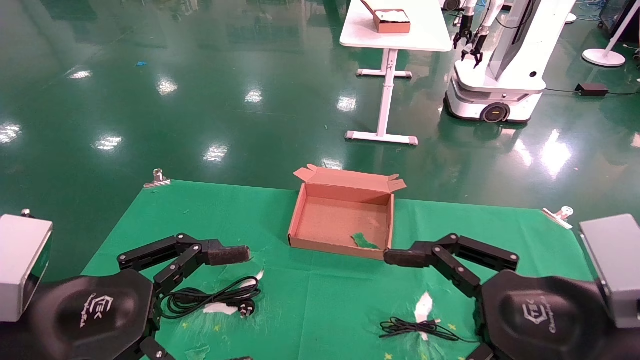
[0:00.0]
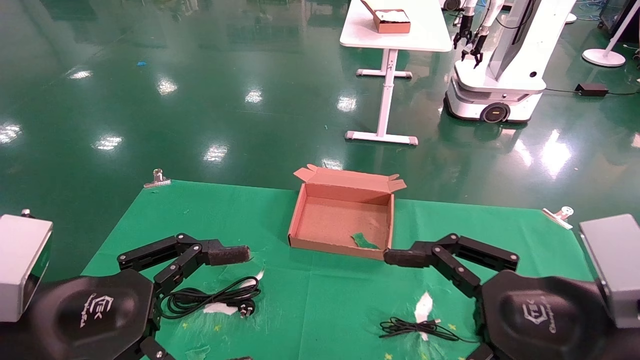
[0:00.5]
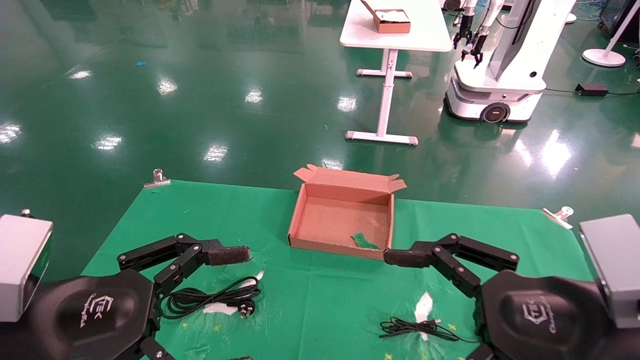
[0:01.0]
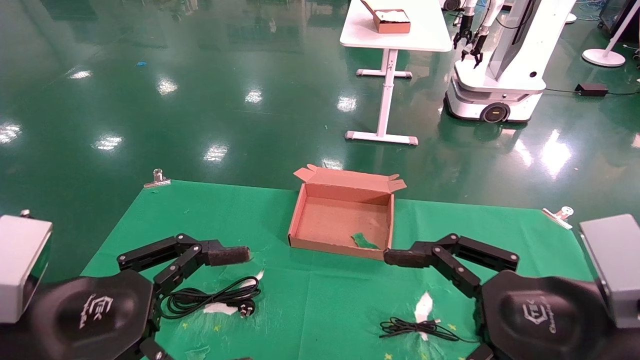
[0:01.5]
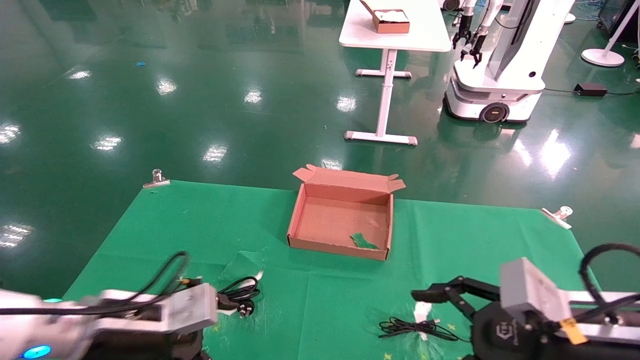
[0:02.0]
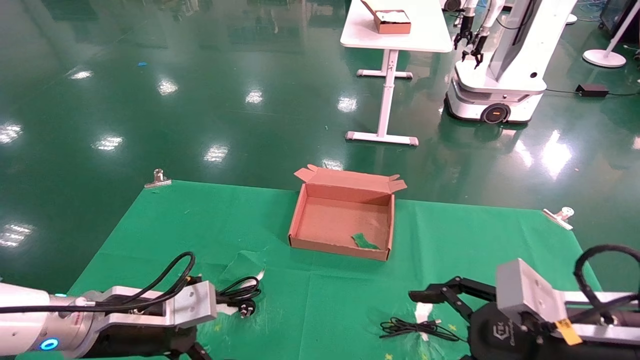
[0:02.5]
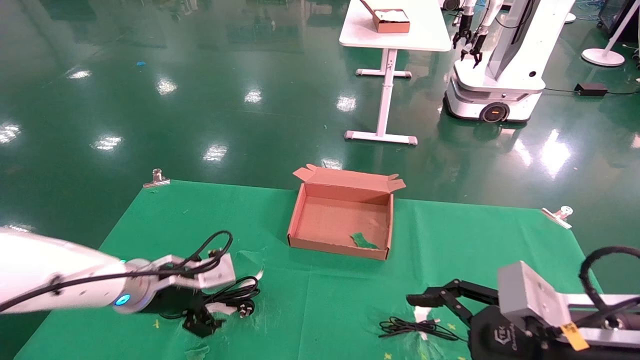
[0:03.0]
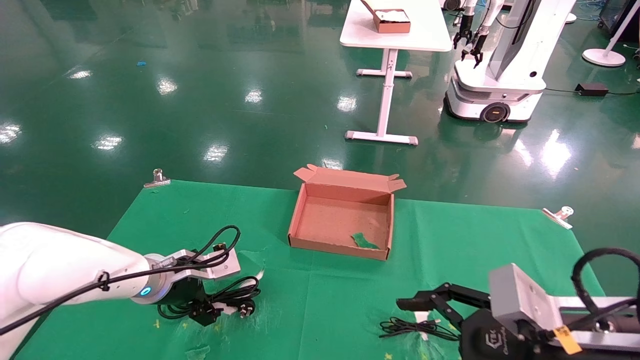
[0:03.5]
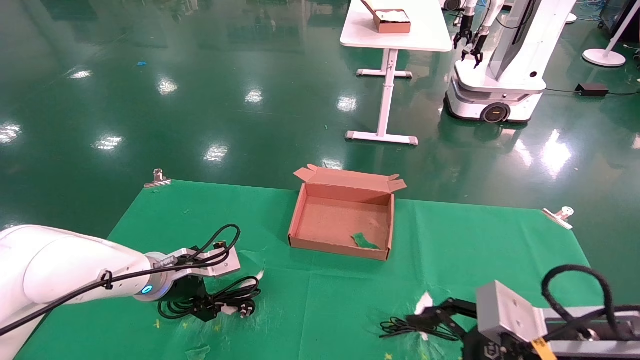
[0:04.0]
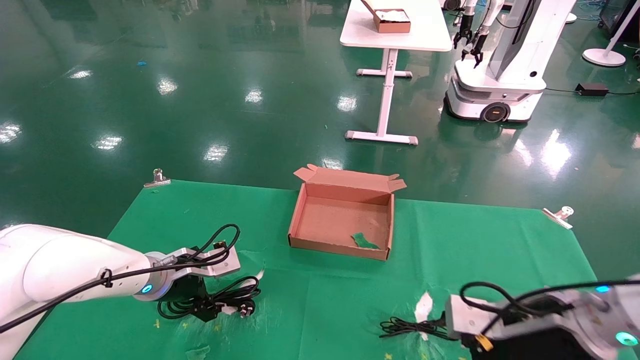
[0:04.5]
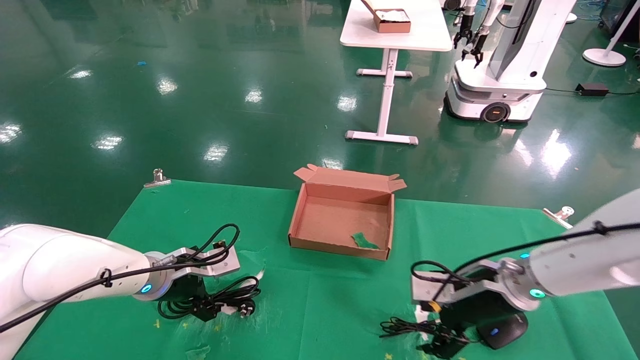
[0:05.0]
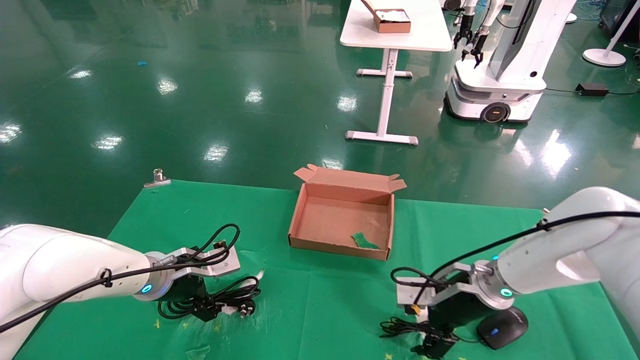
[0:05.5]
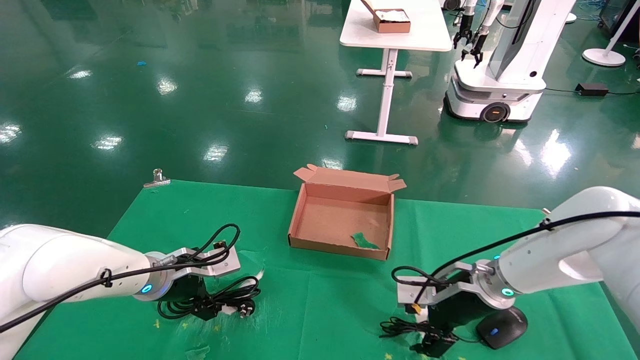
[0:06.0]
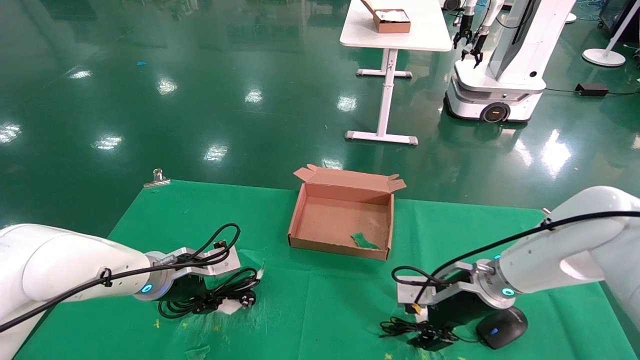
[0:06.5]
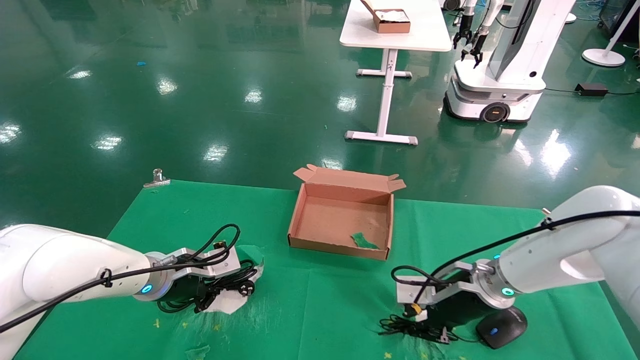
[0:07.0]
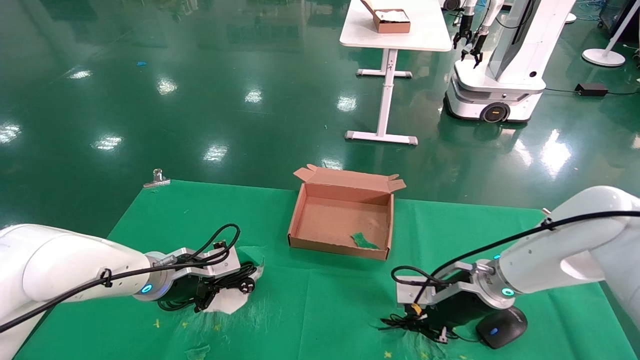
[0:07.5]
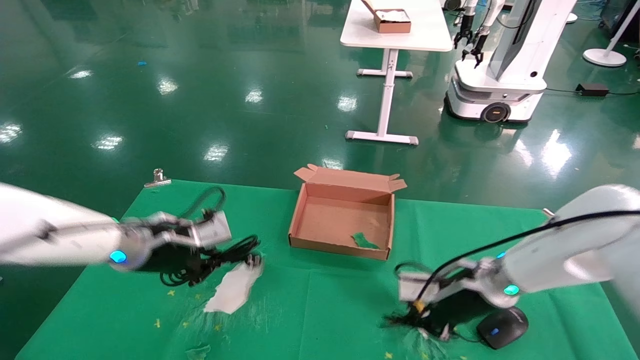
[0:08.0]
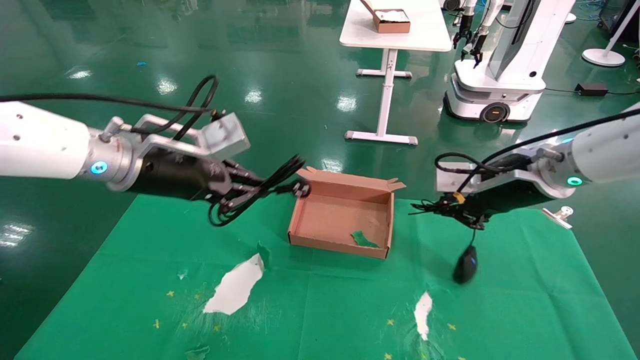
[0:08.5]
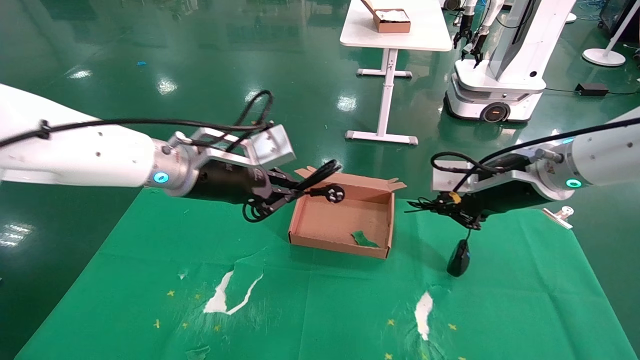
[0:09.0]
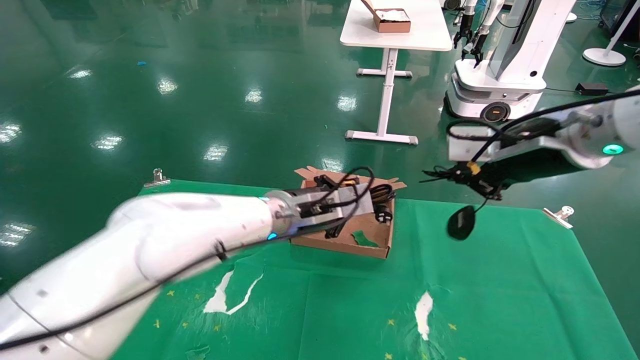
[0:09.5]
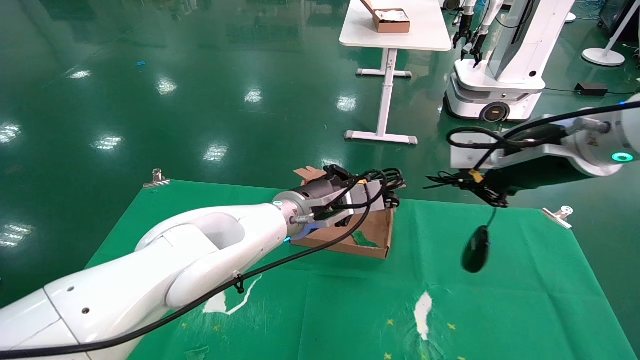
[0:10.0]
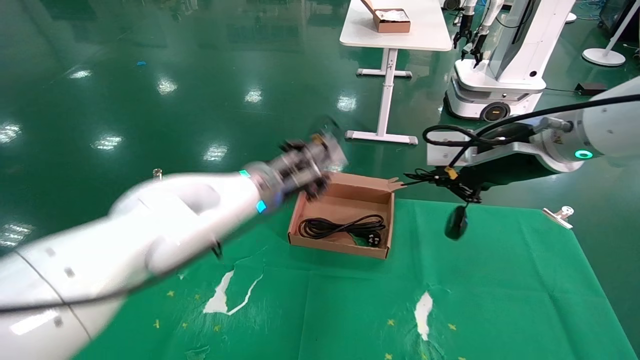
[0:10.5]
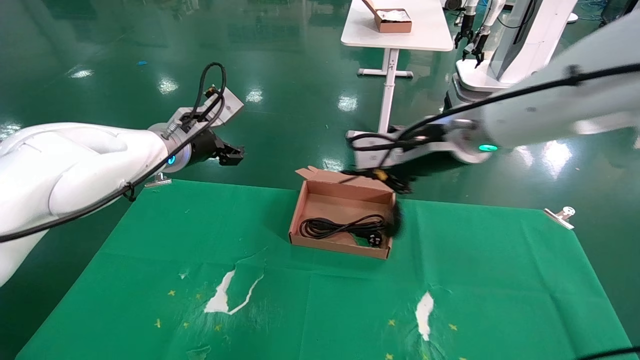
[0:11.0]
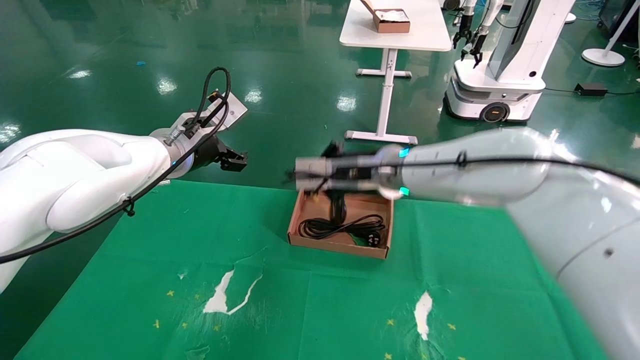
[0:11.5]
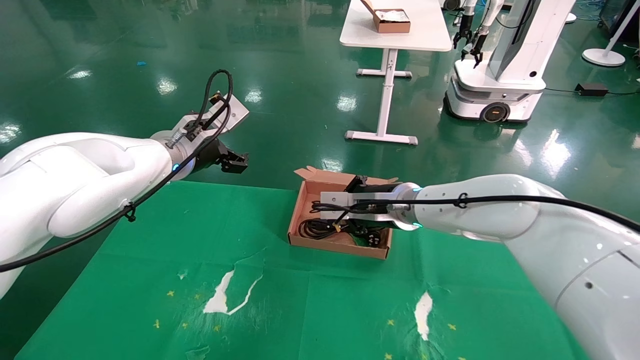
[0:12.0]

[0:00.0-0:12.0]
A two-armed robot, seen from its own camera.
Step, 0:02.0 to 0:07.5: Grab and lift both the mouse and power cord from the accessory packaging area at the same time.
0:00.0 to 0:02.0: The right gripper moves approximately 5 cm. Meanwhile the left gripper moves forward and downward, some 15 cm.
0:02.0 to 0:04.0: The left gripper is displaced forward by approximately 15 cm.
0:04.0 to 0:06.0: The right gripper moves forward, about 20 cm.
0:06.0 to 0:08.0: The right gripper ends up some 5 cm from where it was, and closes its fingers, while the left gripper goes roughly 5 cm upward, and closes its fingers.
0:08.0 to 0:10.0: The right gripper moves upward and backward, some 20 cm. Meanwhile the left gripper travels to the right by about 20 cm.
0:10.0 to 0:12.0: The right gripper shifts some 25 cm to the left, forward and downward. Meanwhile the left gripper is displaced to the left and upward by some 20 cm, and opens up.

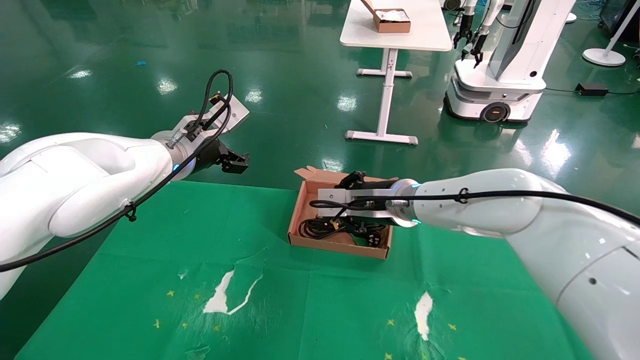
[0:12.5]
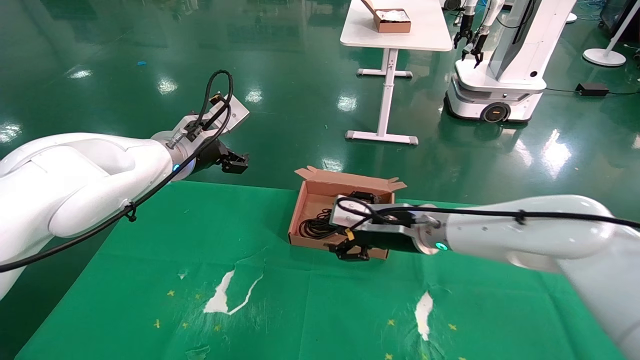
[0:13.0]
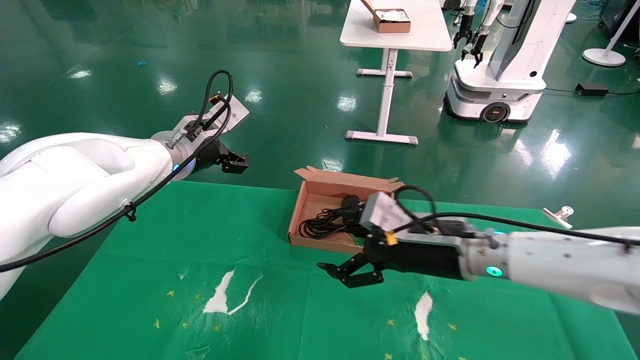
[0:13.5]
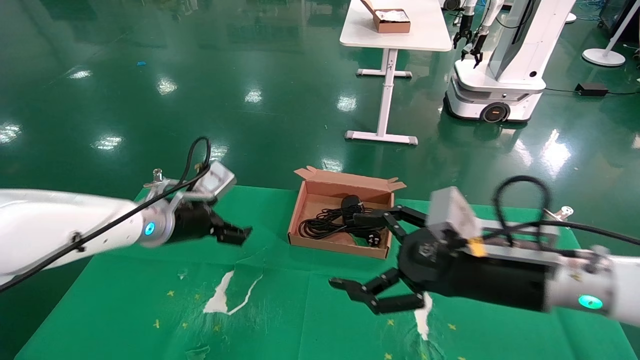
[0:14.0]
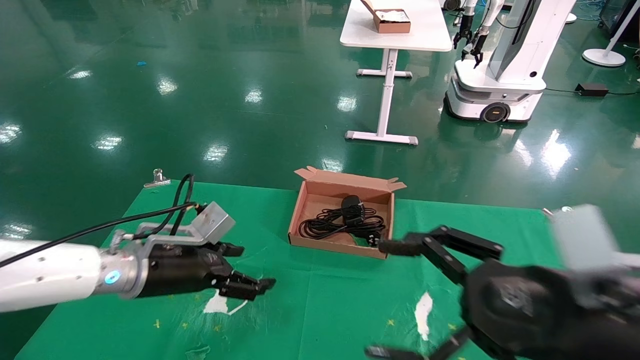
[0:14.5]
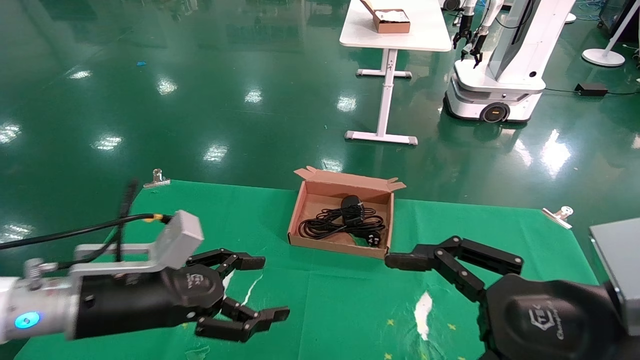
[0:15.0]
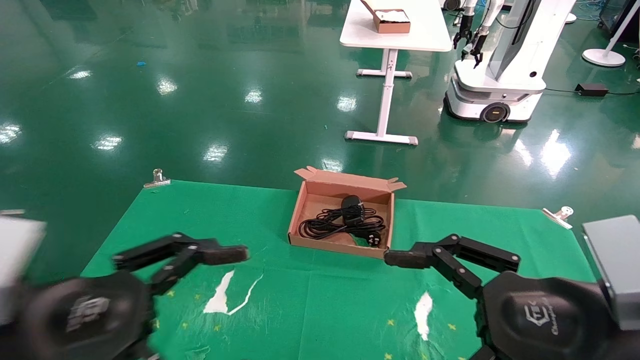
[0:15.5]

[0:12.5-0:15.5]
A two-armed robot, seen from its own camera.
Step, 0:12.5 to 0:14.5: Place the mouse and power cord into the box.
0:12.5 to 0:14.0: The left gripper goes some 10 cm downward. Meanwhile the right gripper is displaced backward and to the right by about 20 cm, and opens up.
0:14.0 to 0:15.5: The left gripper moves backward, some 25 cm. Meanwhile the right gripper is displaced backward by some 10 cm.
